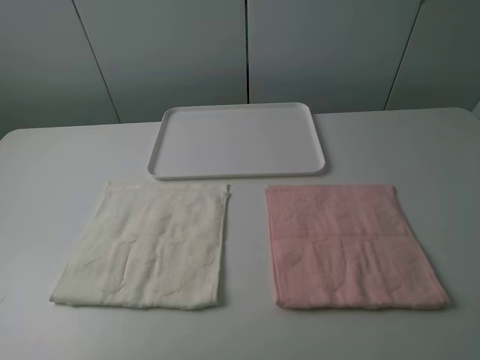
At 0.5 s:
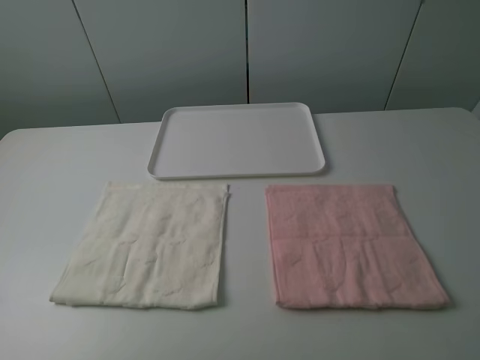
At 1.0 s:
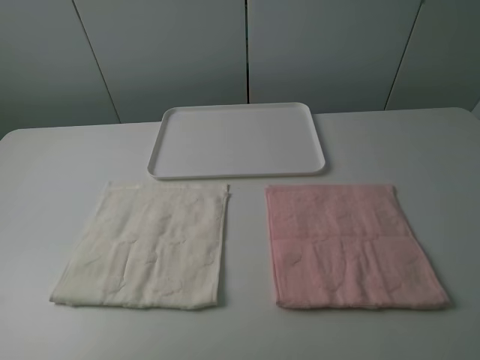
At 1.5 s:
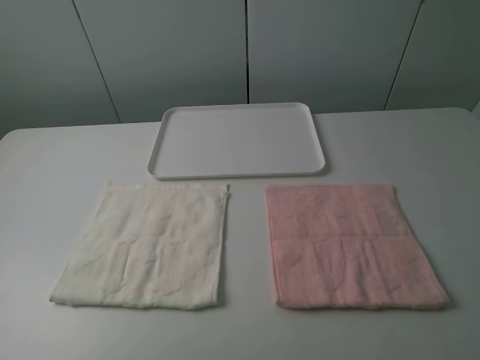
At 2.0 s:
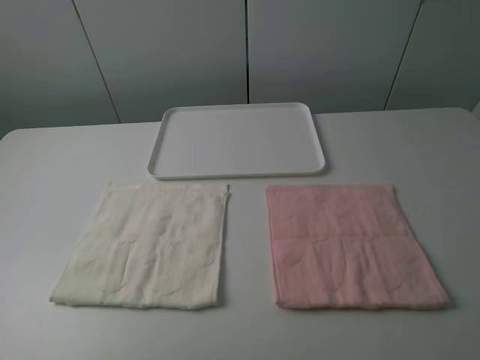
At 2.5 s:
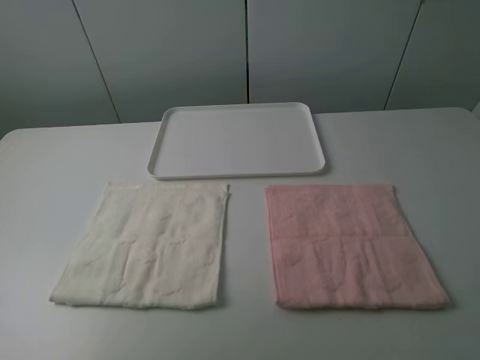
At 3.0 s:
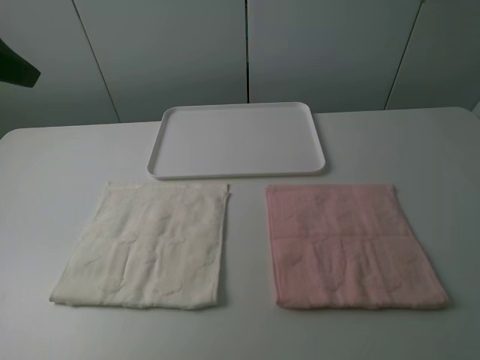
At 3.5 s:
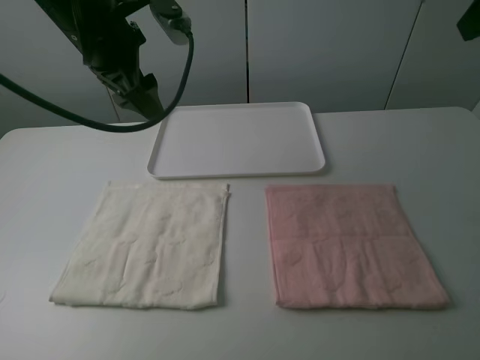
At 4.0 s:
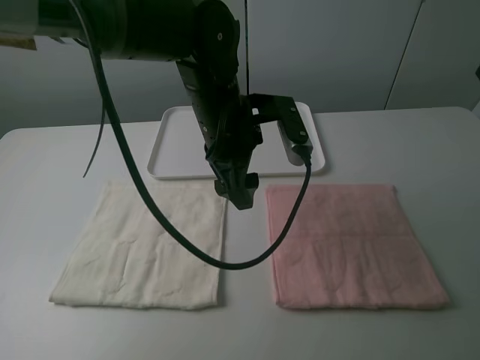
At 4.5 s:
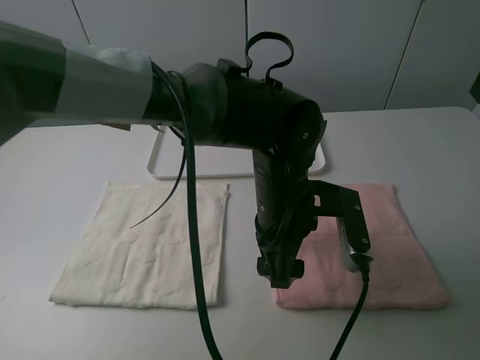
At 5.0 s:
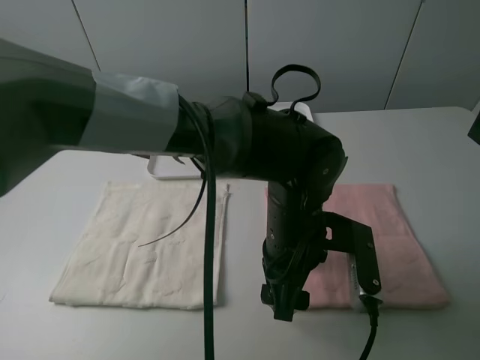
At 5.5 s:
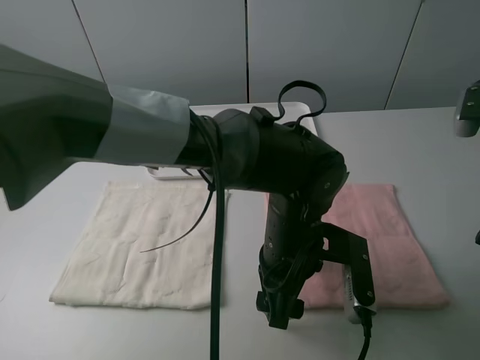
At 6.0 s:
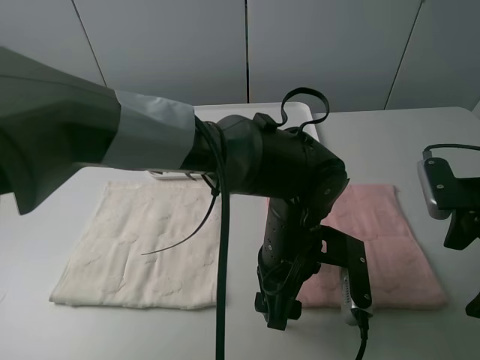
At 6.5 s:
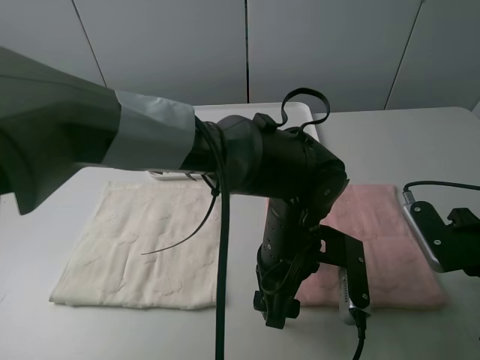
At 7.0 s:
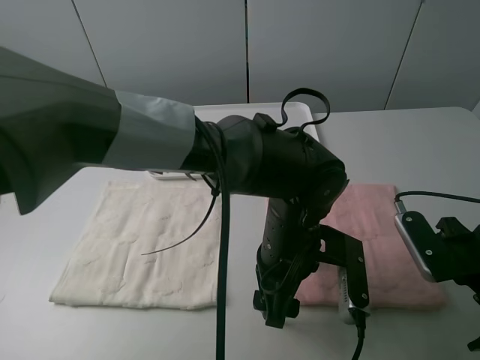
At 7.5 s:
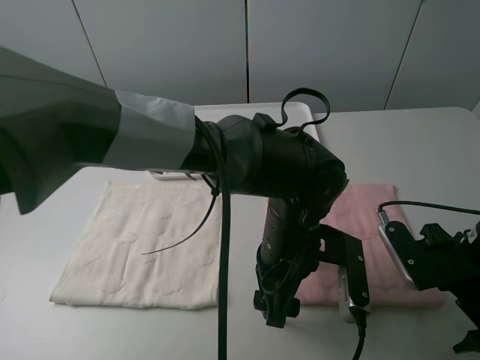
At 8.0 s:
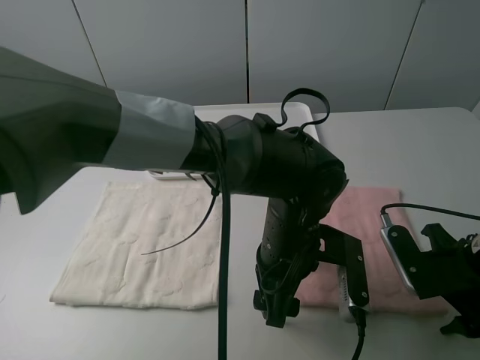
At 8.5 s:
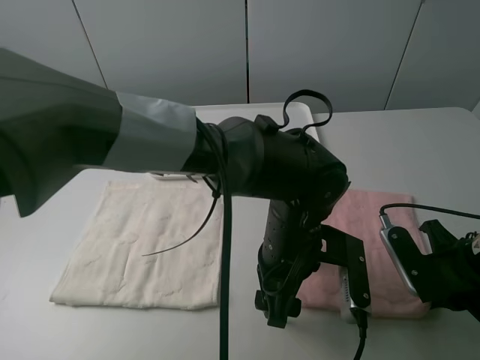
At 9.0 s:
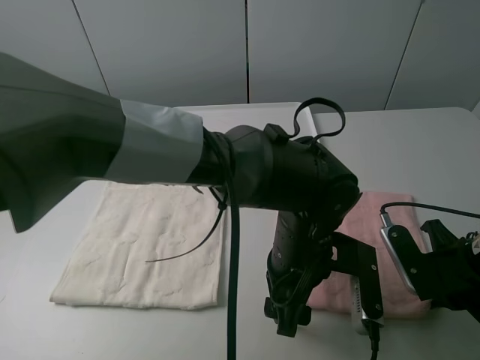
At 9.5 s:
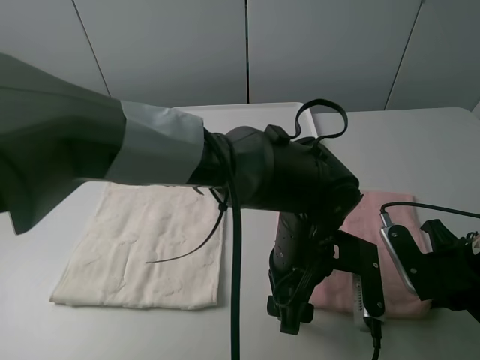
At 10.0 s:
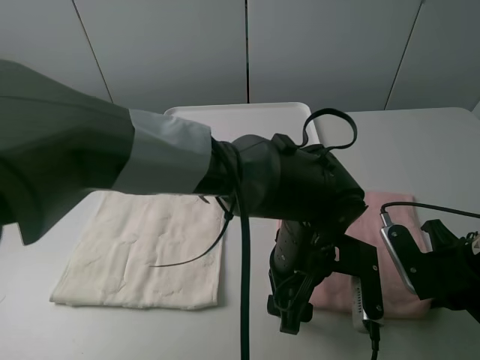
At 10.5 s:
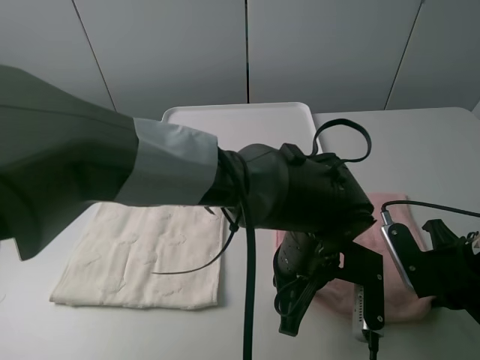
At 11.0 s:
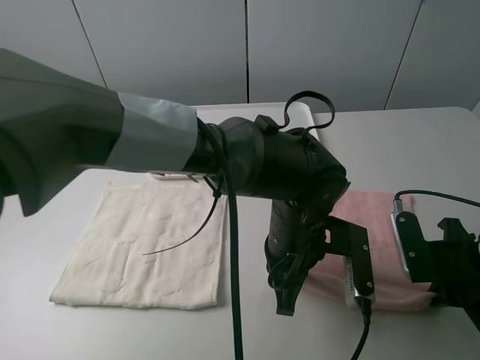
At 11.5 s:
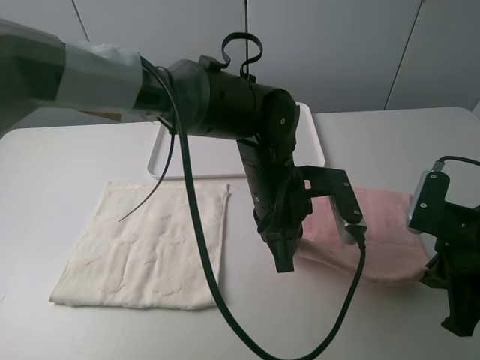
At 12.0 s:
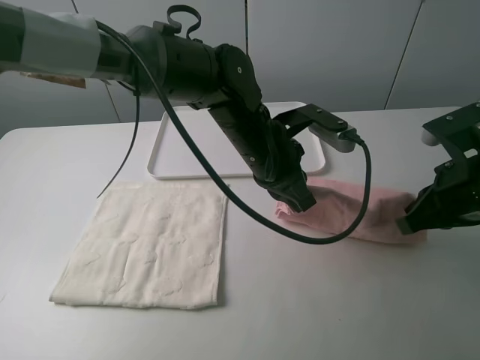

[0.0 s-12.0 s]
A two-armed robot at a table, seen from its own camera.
Task of the whole recording: fold one of the towels by two grippers and place it on the tray,then fold another towel by two grippers and place it on the folded towel.
Step, 0.0 to 10.5 s: Grasp the pink towel with the right gripper.
0.0 to 2.0 s: Both grippers stay about where they are.
2.0 to 4.0 s: The left gripper moves forward and to the right, some 40 cm. Meanwhile the right gripper moves forward, about 30 cm.
4.0 to 6.0 s: The left gripper goes about 15 cm backward, downward and to the right, while the right gripper goes some 20 cm downward and backward.
6.0 to 8.0 s: The right gripper travels downward by about 5 cm, and closes.
8.0 to 10.0 s: The right gripper closes.
10.0 to 12.0 s: The right gripper moves upward, about 10 cm. Meanwhile the left gripper goes about 15 cm forward, upward and to the left, and closes up.

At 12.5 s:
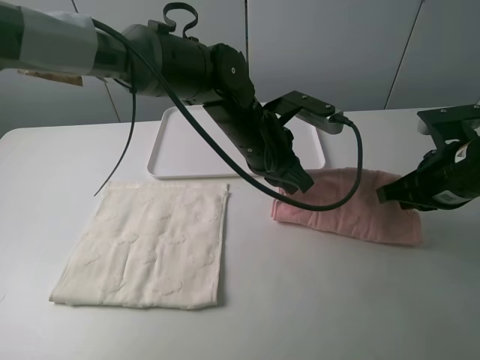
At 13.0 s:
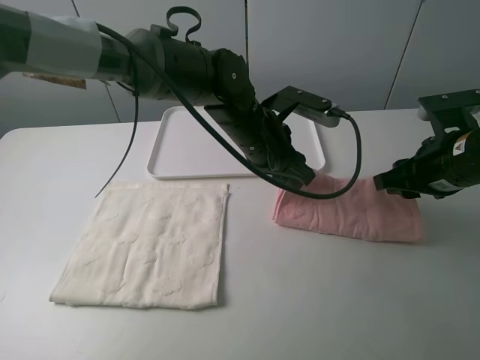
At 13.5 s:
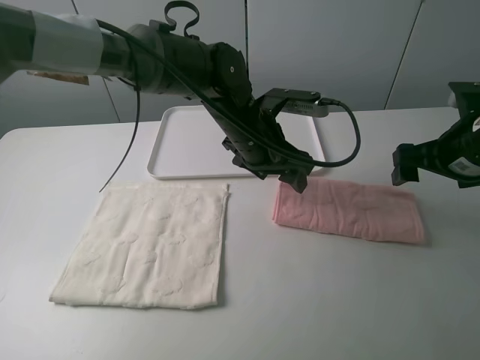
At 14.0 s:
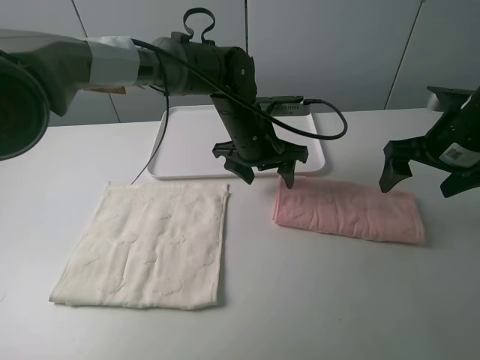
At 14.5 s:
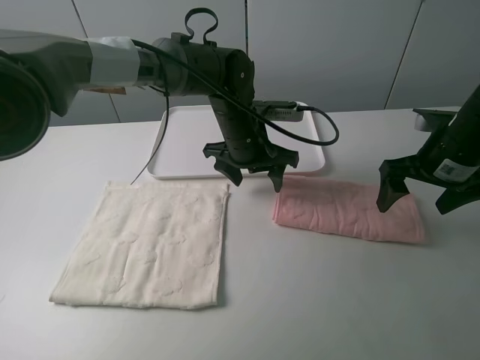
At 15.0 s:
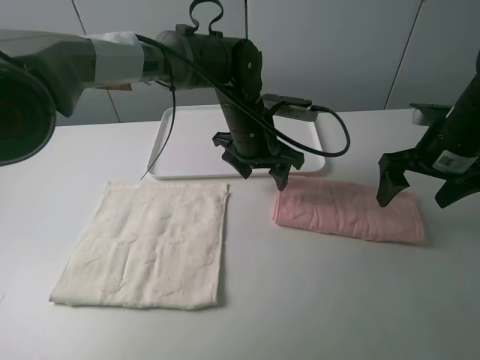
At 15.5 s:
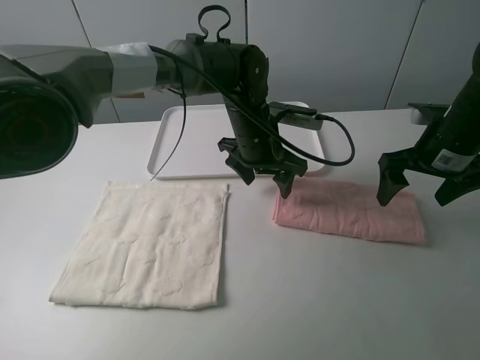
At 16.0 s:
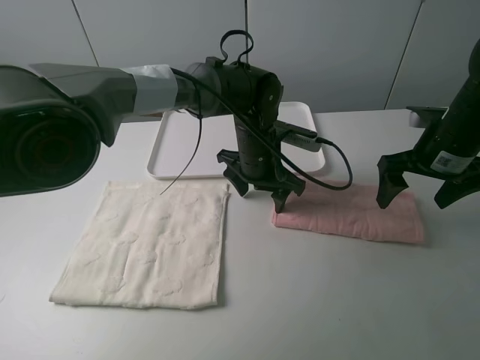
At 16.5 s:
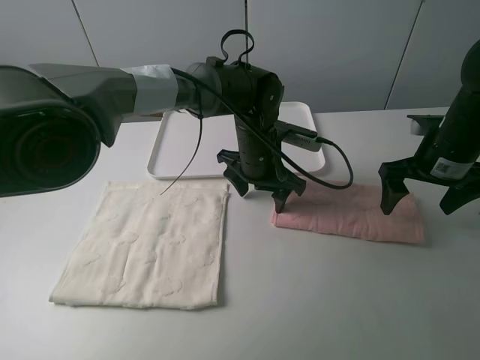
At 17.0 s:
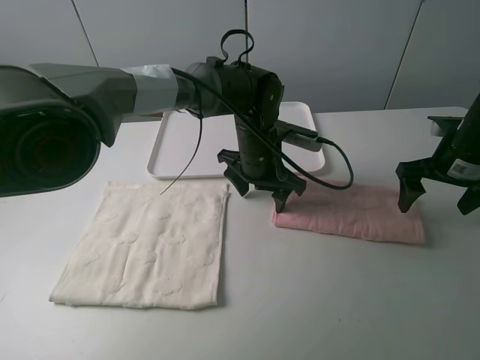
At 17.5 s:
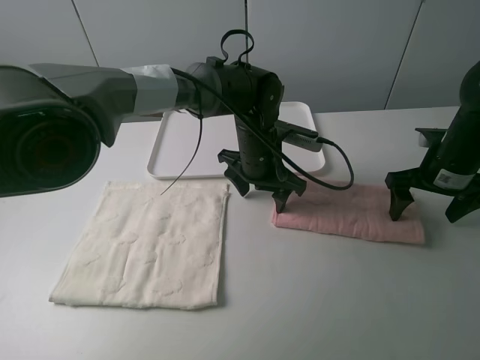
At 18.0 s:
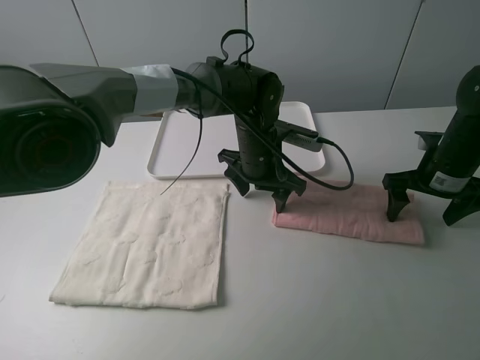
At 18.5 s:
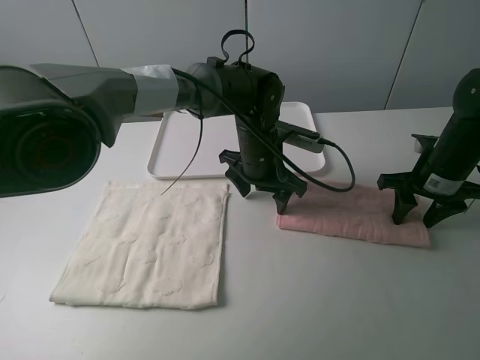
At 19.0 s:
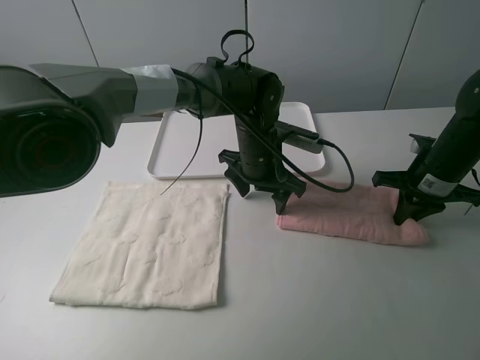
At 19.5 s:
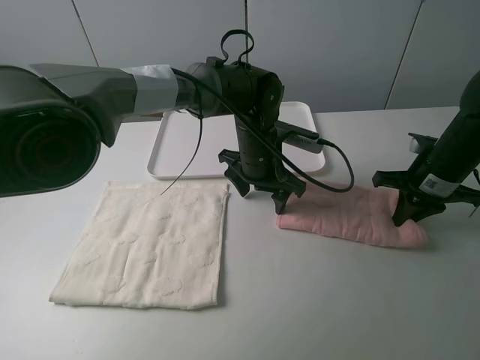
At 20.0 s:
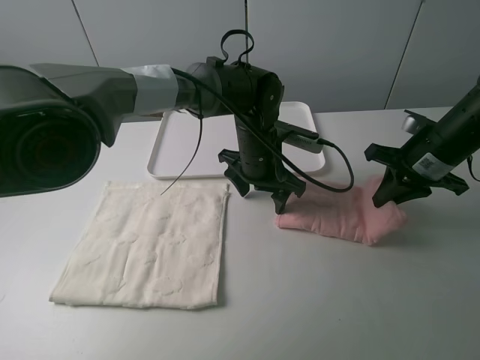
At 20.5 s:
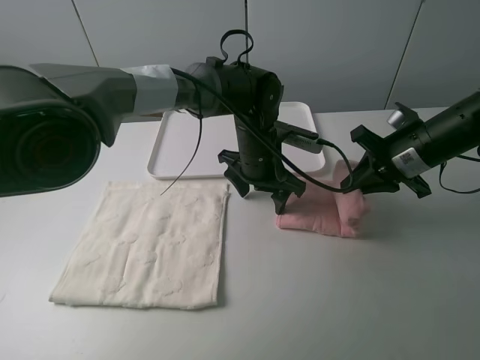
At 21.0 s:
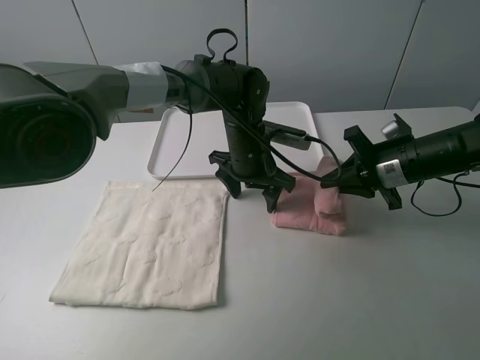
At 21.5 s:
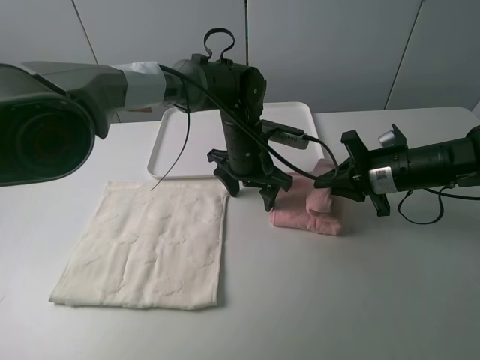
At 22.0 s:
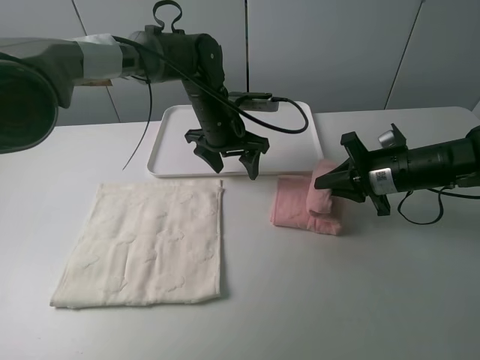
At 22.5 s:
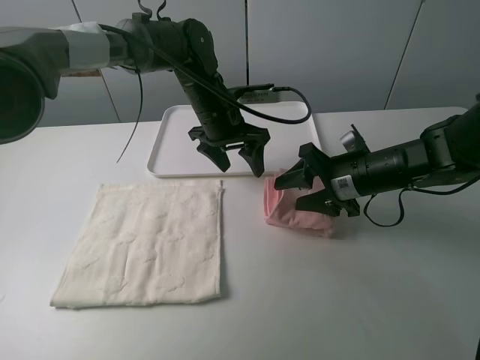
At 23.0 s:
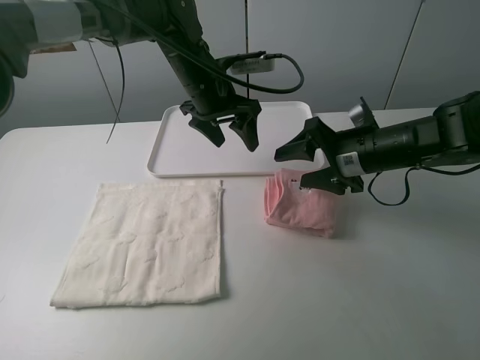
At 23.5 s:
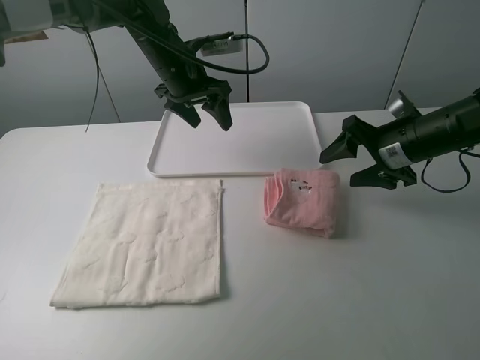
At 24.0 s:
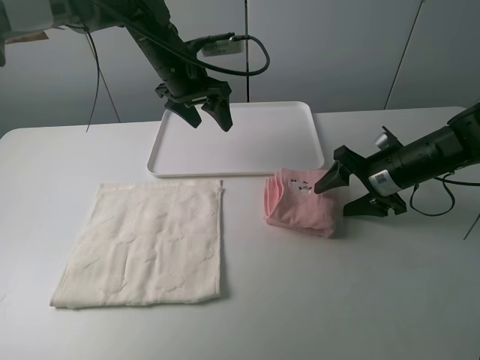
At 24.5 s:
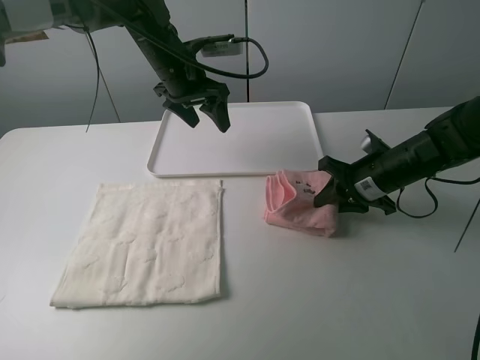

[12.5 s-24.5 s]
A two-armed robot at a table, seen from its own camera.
Task of the whole recording: fold one of the towels by two grippers and place it on the tray,then fold another towel by two grippers and place it on the folded towel.
Step, 13.5 to 16.0 s: Press the pink towel with the left gripper.
Step, 16.5 to 19.0 s: Grasp the pink towel with the right gripper.
Step, 19.5 to 22.5 s: Fold the pink towel from right to left with right gripper.
12.5 to 14.5 s: The left gripper shifts by roughly 5 cm, and opens. The right gripper changes place by roughly 5 cm, and opens.
14.5 to 16.5 s: The grippers move only a little.
16.5 to 18.5 s: The right gripper changes place by some 5 cm, and closes up.
18.5 to 20.5 s: The right gripper heads to the left, covering approximately 5 cm, and closes its fingers.
20.5 to 22.5 s: Both grippers travel together to the left, some 5 cm. The right gripper opens its fingers.
22.5 to 24.5 s: The right gripper closes; the left gripper travels to the left and upward by approximately 10 cm.

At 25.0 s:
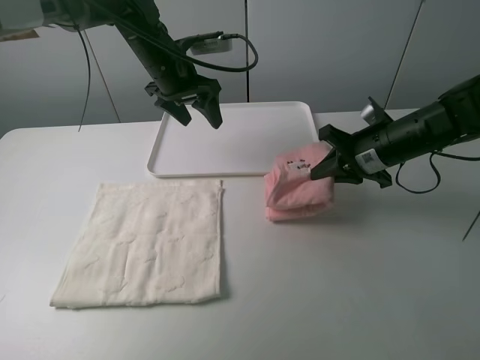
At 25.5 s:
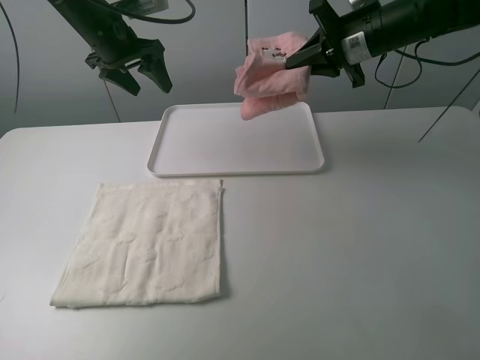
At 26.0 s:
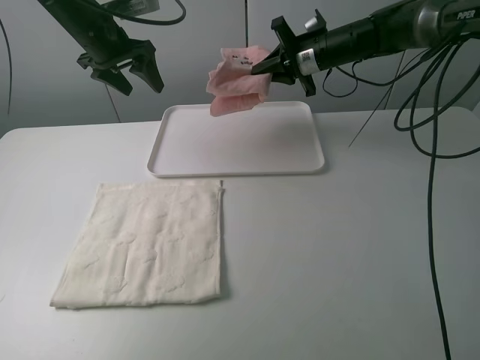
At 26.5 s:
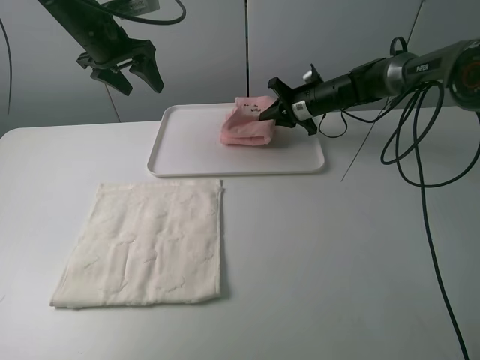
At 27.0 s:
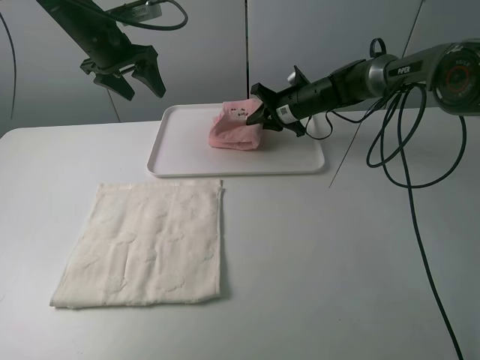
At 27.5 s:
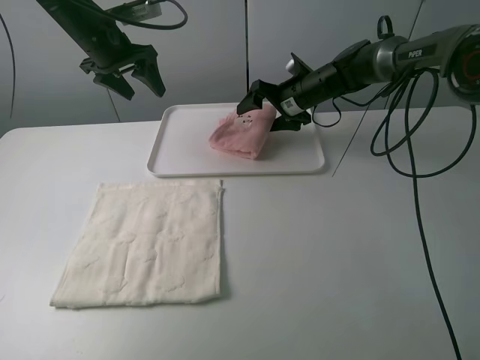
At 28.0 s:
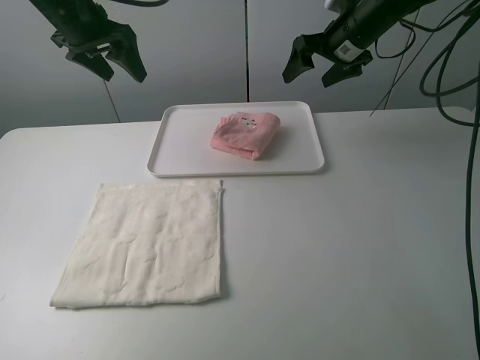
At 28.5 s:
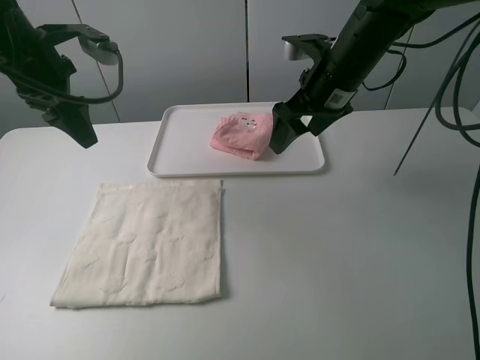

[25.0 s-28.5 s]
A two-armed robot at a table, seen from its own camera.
Task of the whole recording: fold one of the towels by two grippers and place it on the tray,then fold another towel by two grippers and place it on the folded towel.
Step, 25.0 to 27.0 s: Move the pink towel to the plate with the right gripper.
25.0 to 27.0 s: The right gripper shifts about 20 cm forward and to the left. The left gripper shifts approximately 10 cm to the left.
27.0 to 28.5 s: The right gripper shifts some 20 cm backward and upward, and opens, while the left gripper goes approximately 15 cm backward.
